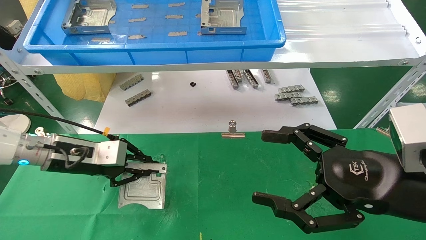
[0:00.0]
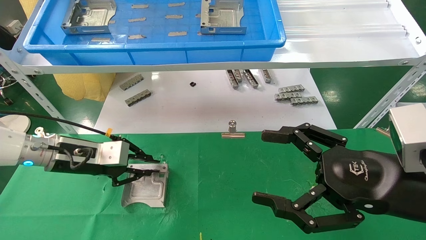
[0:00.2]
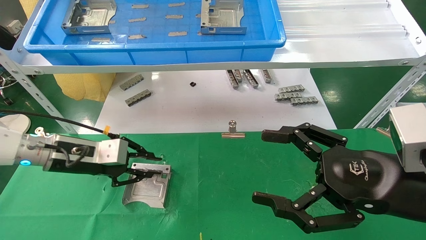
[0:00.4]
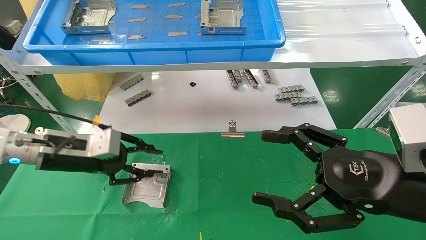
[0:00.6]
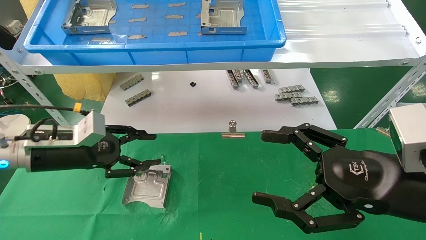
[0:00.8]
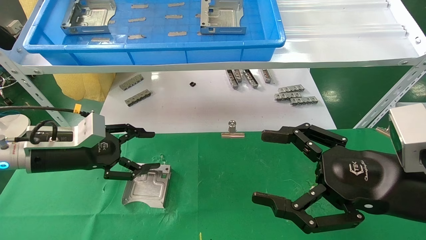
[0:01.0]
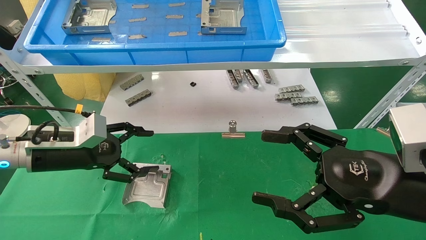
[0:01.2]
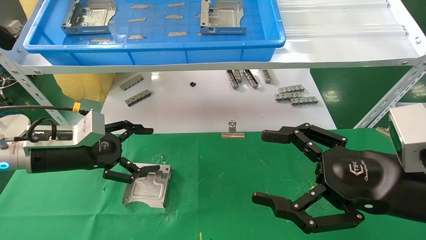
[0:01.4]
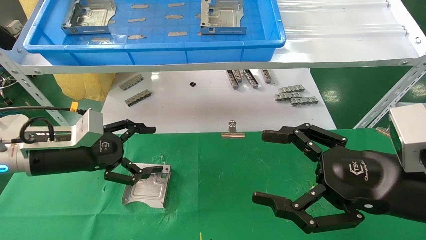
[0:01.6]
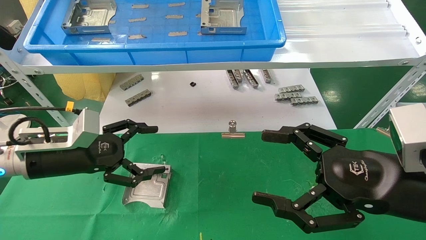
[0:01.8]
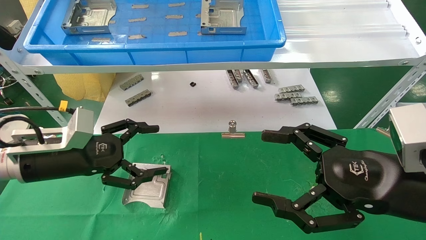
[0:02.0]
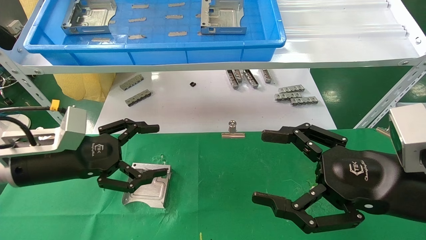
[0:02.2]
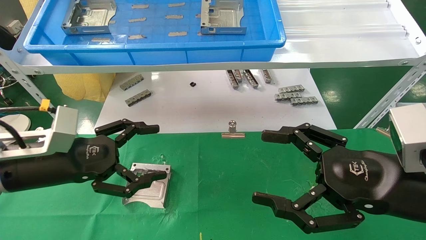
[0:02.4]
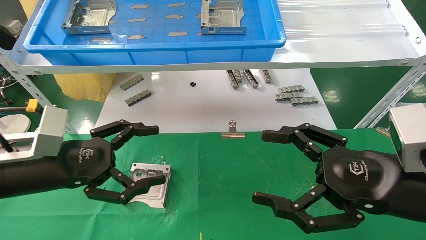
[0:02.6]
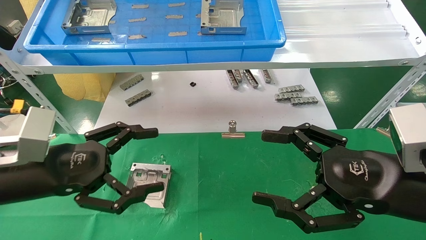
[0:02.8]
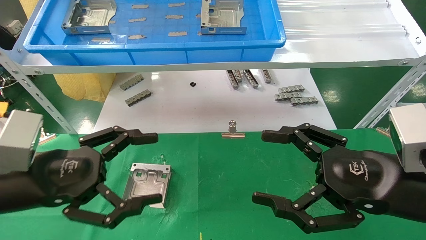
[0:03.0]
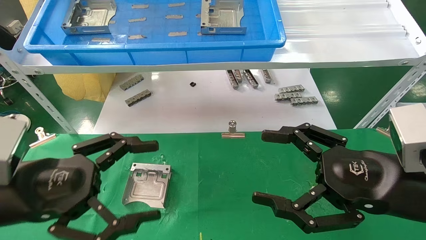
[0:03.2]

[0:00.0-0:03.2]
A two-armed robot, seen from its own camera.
Task of the whole recording: use the mechanical arm to pick up the parts and place them on the table.
0:00.0 to 0:01.6: The left gripper opens its fingers.
0:01.6 to 0:03.2: The left gripper travels backward by about 15 cm.

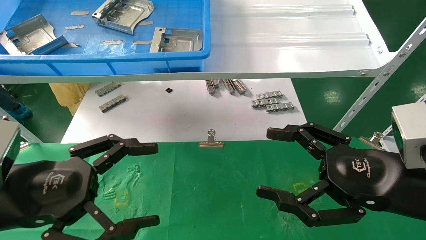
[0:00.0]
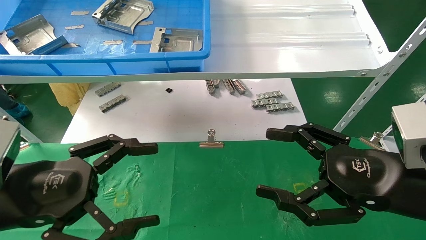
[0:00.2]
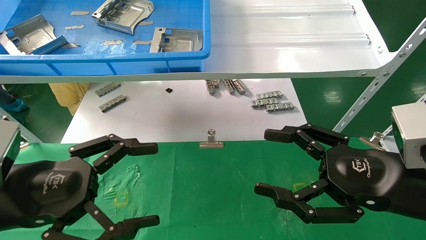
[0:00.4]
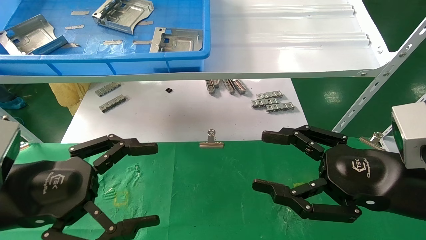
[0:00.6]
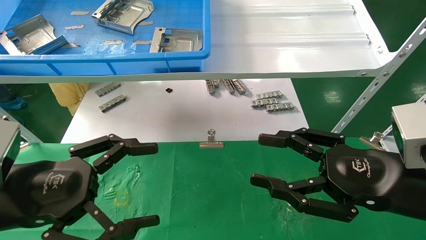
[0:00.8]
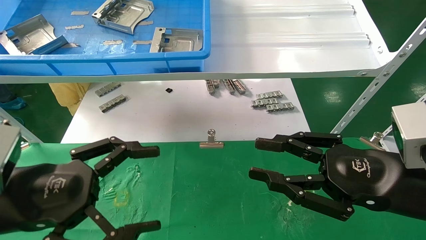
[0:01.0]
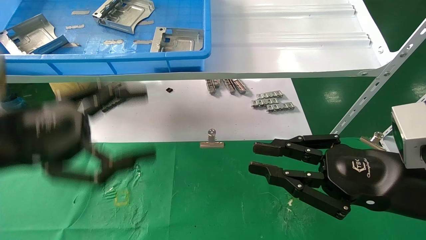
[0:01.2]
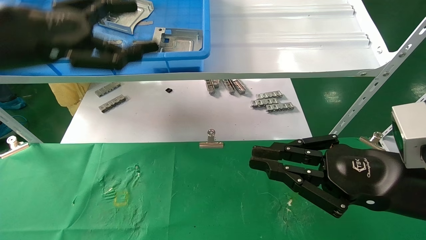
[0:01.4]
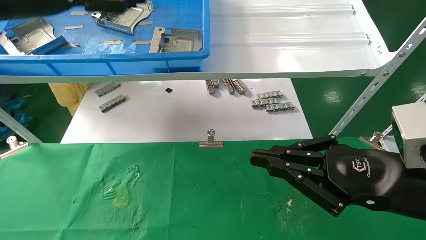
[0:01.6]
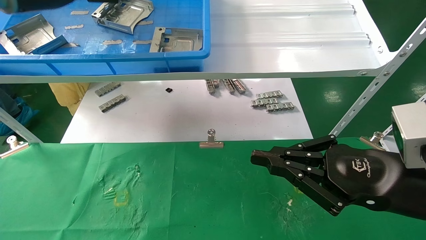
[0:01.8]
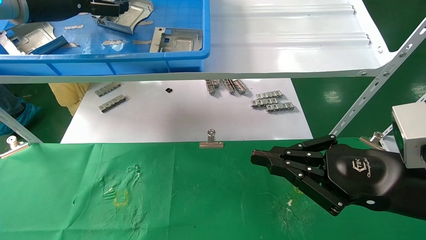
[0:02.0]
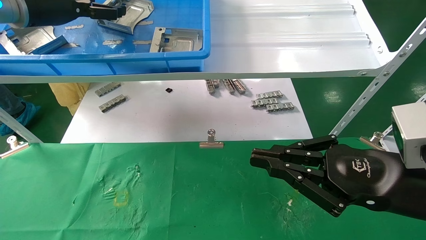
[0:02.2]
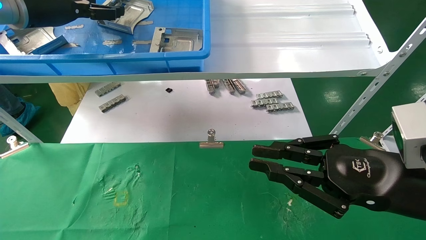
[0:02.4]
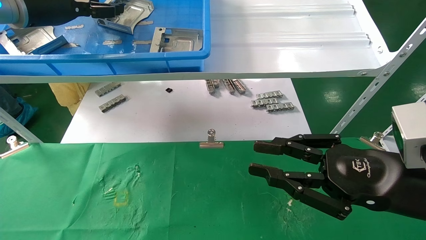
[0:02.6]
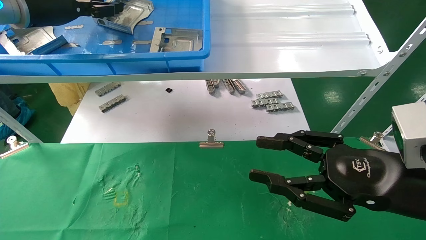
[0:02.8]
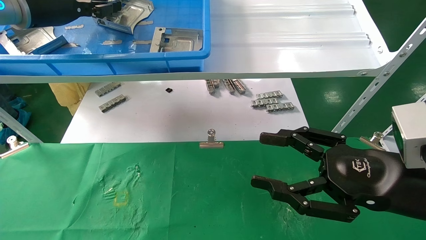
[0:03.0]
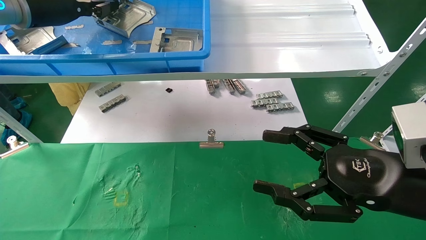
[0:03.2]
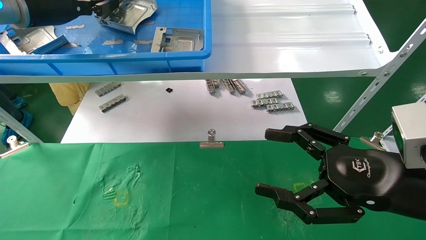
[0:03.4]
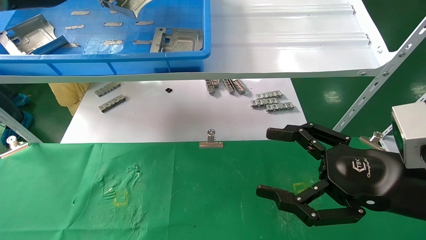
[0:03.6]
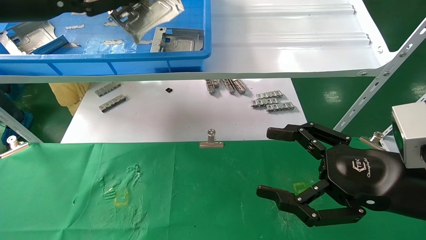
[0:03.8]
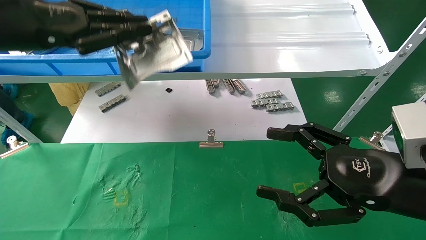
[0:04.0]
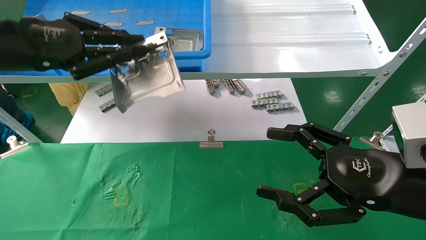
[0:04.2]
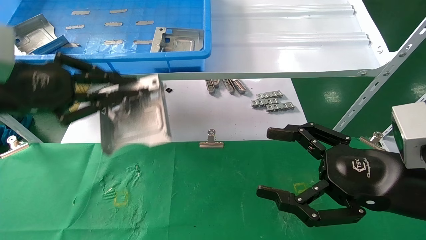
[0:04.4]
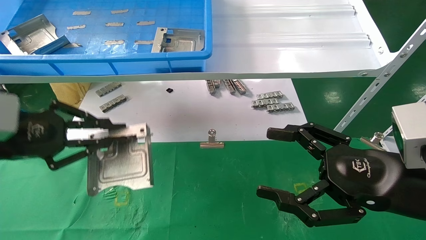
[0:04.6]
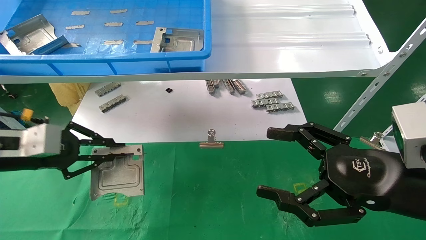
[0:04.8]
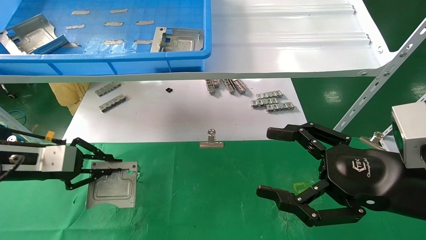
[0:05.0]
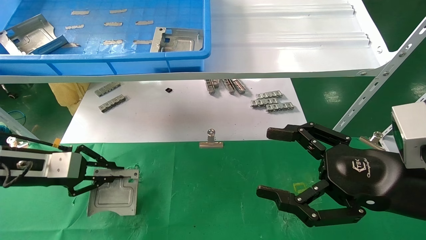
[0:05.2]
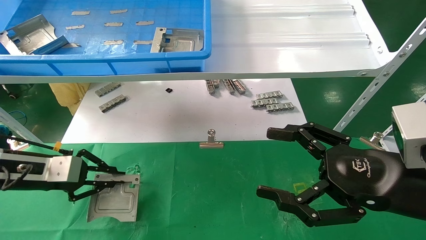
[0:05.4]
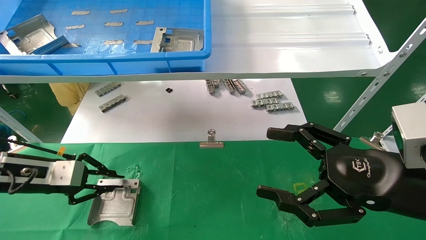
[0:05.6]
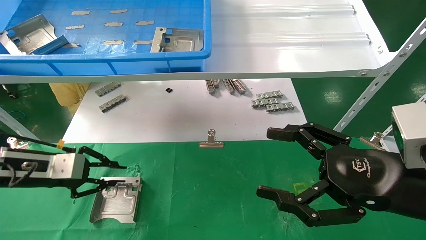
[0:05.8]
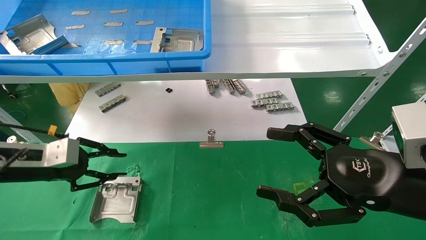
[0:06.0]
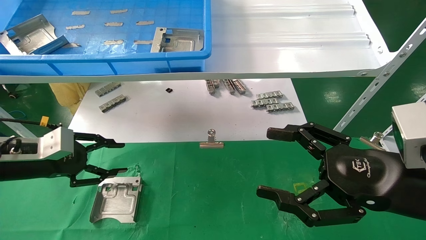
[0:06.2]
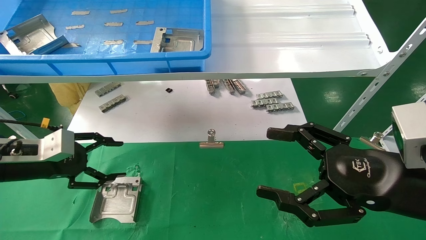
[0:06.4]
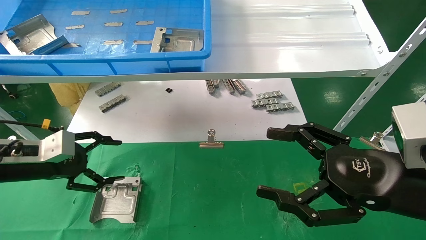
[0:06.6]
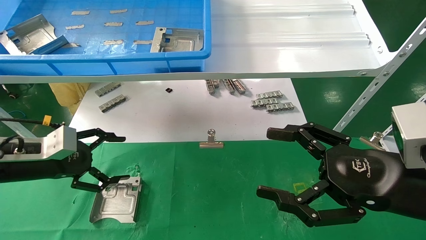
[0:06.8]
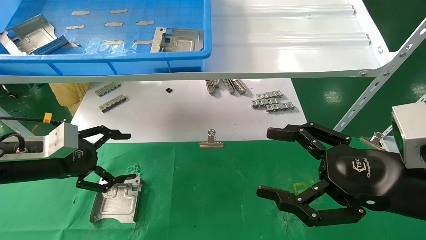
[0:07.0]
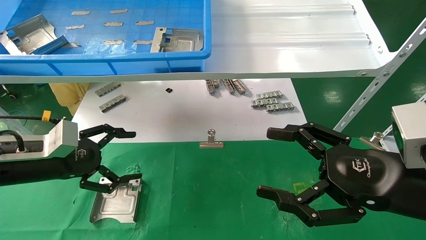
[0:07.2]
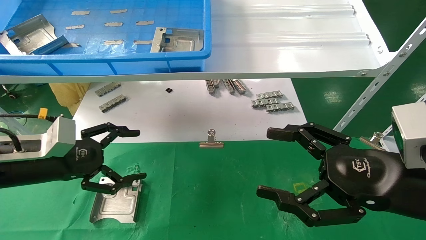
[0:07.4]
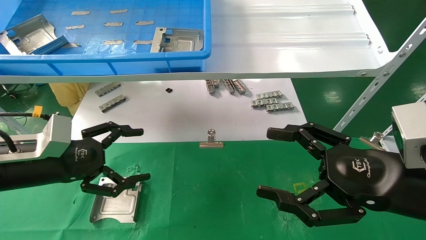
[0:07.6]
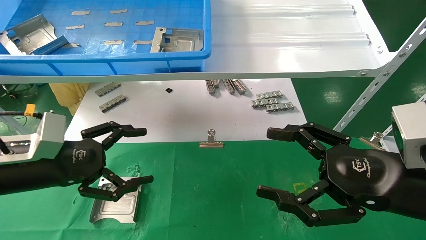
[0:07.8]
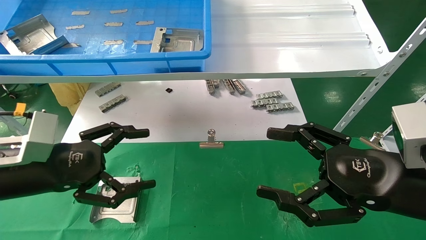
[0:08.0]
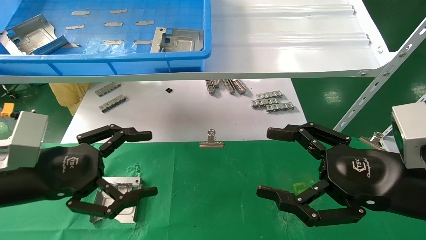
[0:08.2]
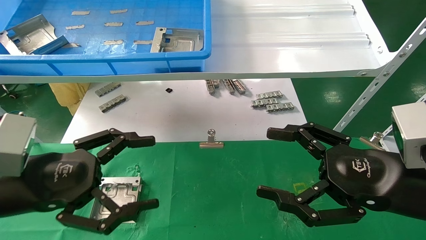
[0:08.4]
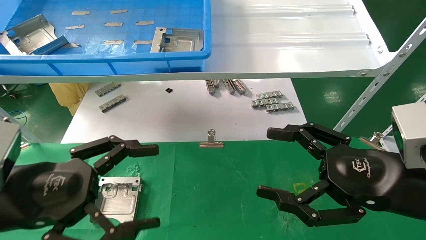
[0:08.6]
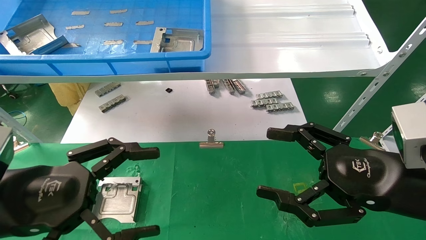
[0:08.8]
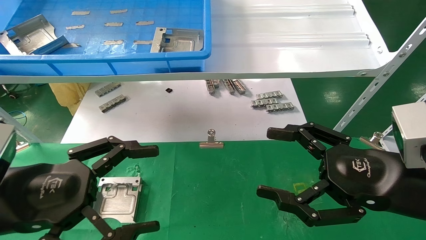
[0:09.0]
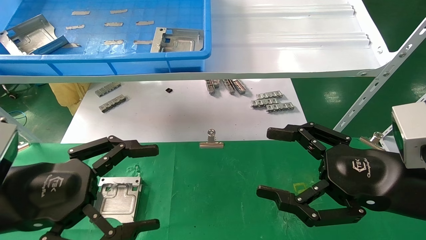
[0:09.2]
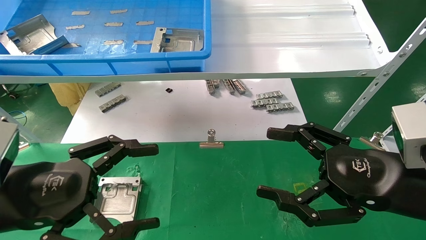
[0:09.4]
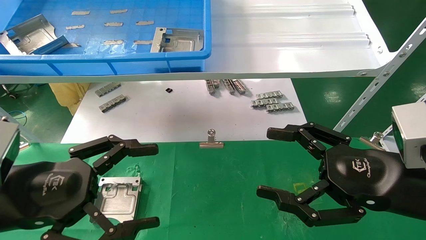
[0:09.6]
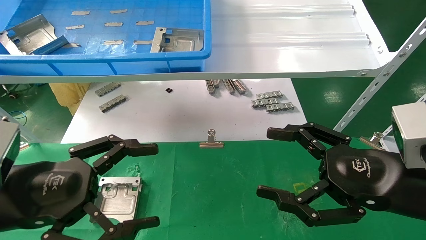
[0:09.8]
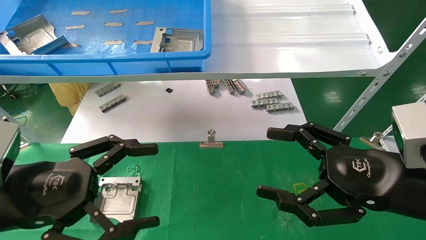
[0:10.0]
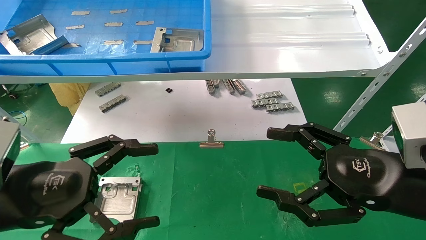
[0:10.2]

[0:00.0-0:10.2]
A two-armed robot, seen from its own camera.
Task of the whole recording: use the mechanical arm to pick up the parts and place them on the table.
Step, 0:01.4 to 0:03.2: Pick up the hard drive bracket from the feeding area.
Step, 0:03.4 to 0:05.8: Place the hard drive bracket into the box.
0:00.0 to 0:01.4: The left gripper heads upward and forward, covering about 20 cm. Meanwhile the right gripper closes up.
0:01.4 to 0:03.0: The left gripper moves forward and upward, some 15 cm, and closes.
0:03.0 to 0:04.4: The right gripper opens its fingers. Meanwhile the left gripper is displaced backward and downward by some 20 cm, and closes its fingers.
0:04.4 to 0:05.8: The left gripper travels downward and forward by approximately 15 cm.
0:05.8 to 0:07.2: The left gripper opens up.
0:07.2 to 0:08.8: The left gripper goes some 15 cm backward and to the right.
0:08.8 to 0:10.2: Both grippers stay put.

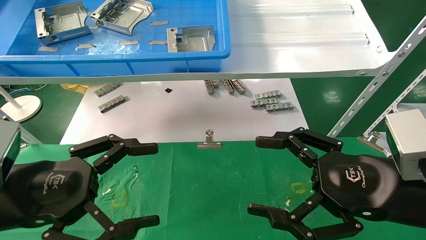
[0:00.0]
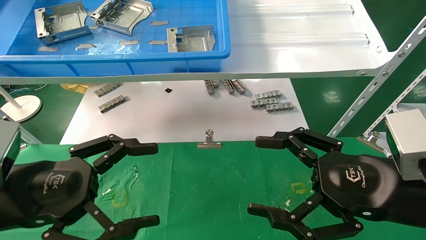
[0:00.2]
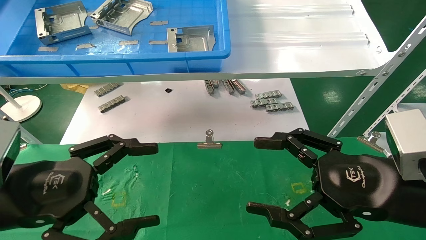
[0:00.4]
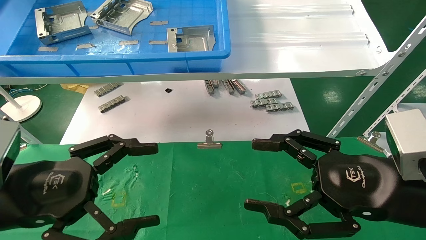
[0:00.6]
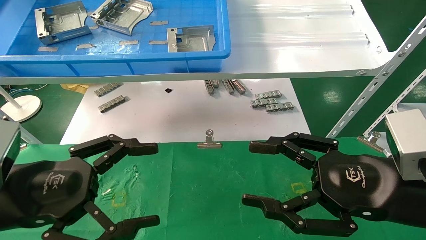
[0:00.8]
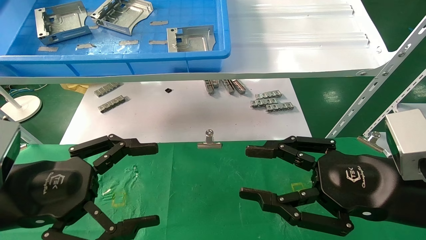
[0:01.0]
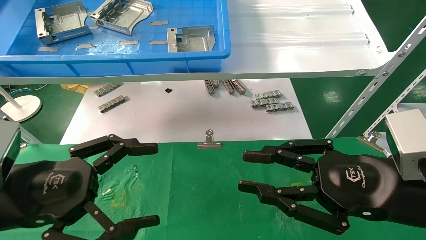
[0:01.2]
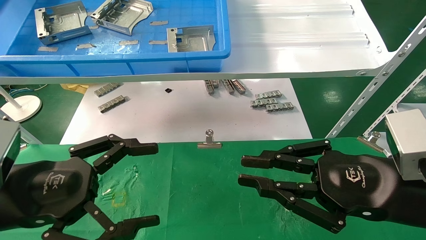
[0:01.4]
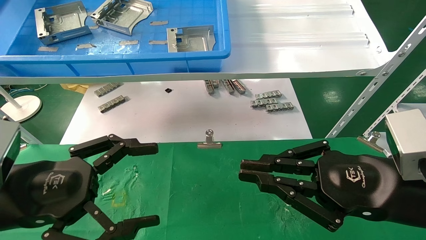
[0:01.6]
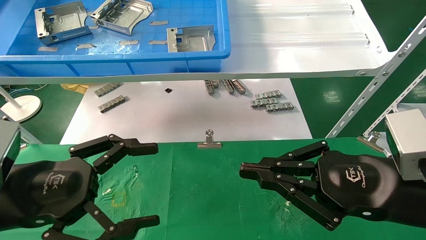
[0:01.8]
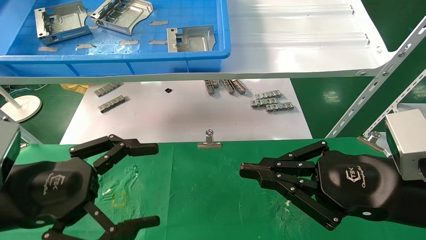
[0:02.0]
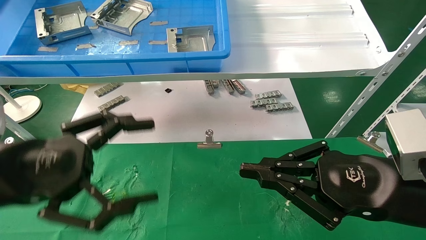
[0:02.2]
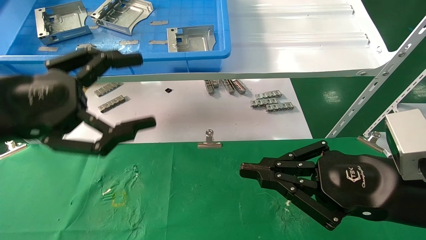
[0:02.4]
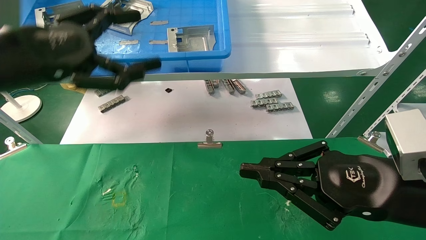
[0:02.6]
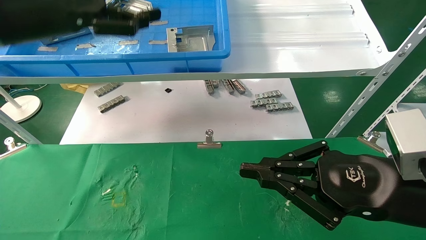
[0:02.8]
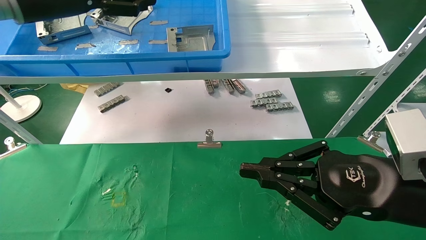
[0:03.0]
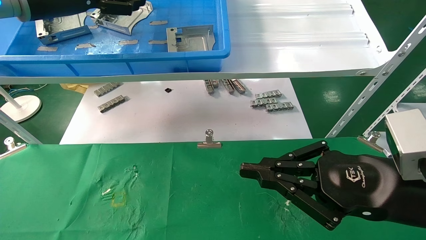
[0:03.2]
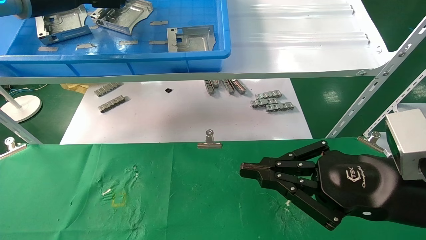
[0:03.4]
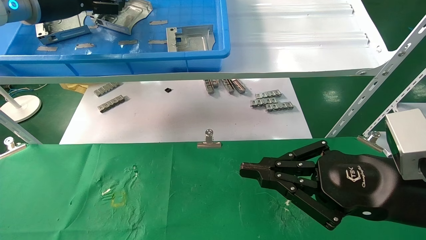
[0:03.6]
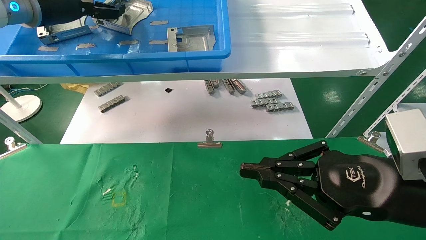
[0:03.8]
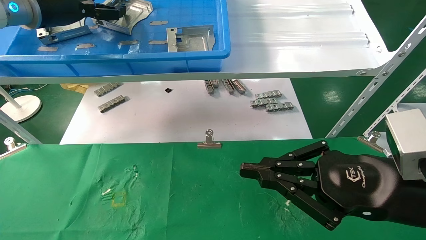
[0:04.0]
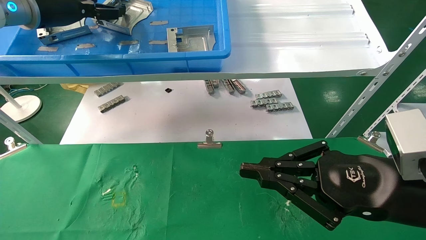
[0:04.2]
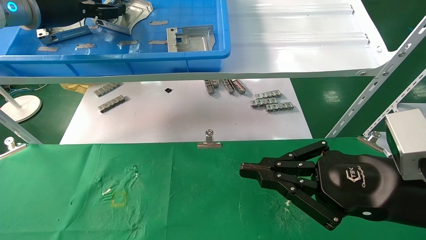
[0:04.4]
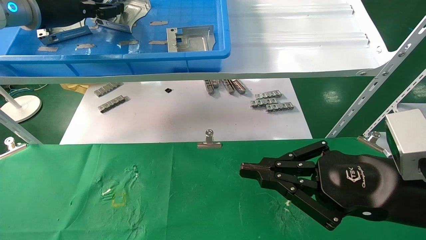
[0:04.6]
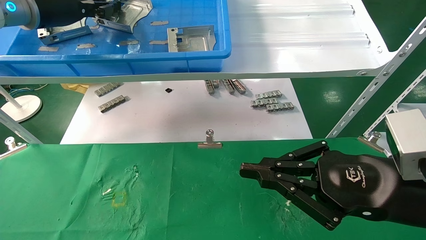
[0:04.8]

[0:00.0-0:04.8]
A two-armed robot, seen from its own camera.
Task of the whole recording: use the mechanical arm to pick up the parts and place them on the table.
Step, 0:02.0 to 0:04.4: Pick up the hard drive bracket from the feeding area.
0:00.0 to 0:01.6: The right gripper closes up.
0:01.6 to 0:03.2: The left gripper is displaced upward and forward by some 30 cm.
0:03.2 to 0:04.8: The left gripper closes.
